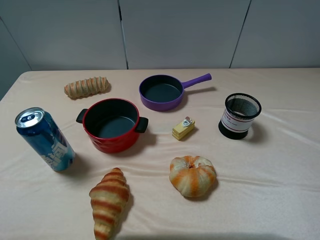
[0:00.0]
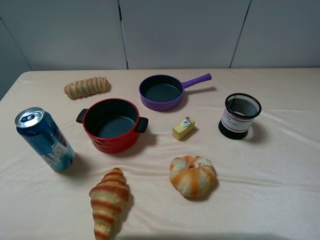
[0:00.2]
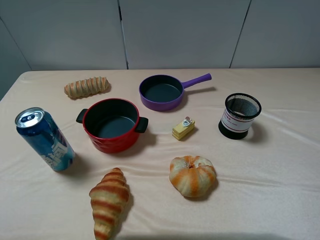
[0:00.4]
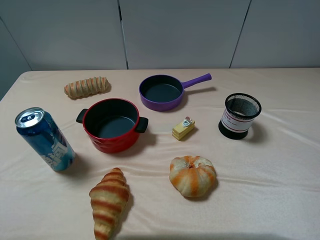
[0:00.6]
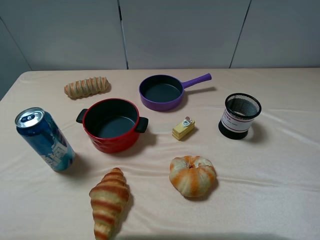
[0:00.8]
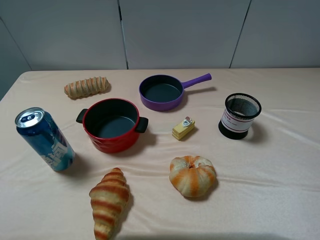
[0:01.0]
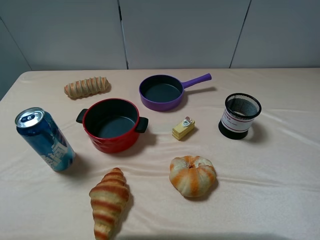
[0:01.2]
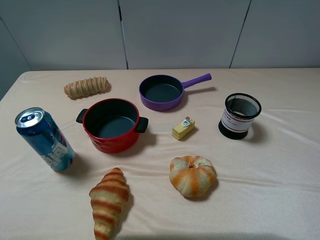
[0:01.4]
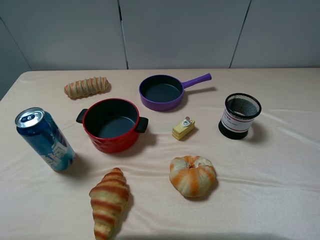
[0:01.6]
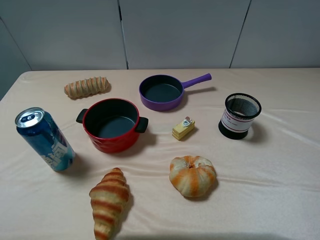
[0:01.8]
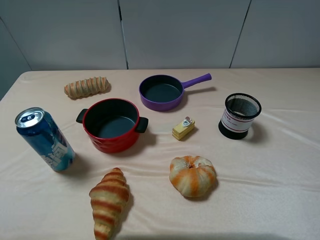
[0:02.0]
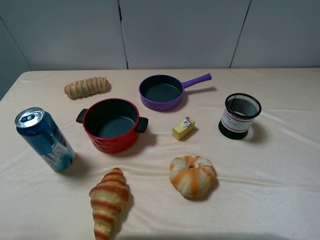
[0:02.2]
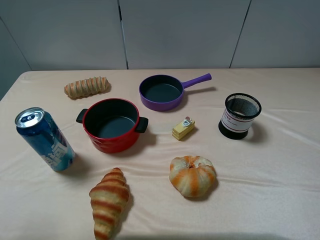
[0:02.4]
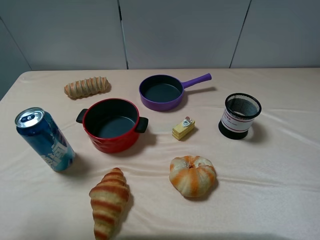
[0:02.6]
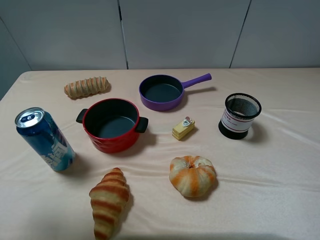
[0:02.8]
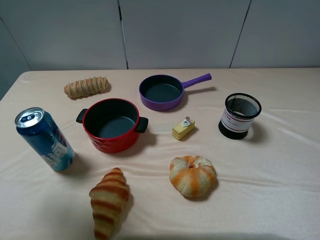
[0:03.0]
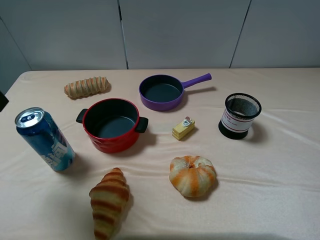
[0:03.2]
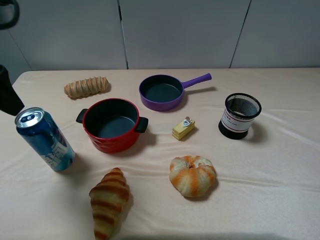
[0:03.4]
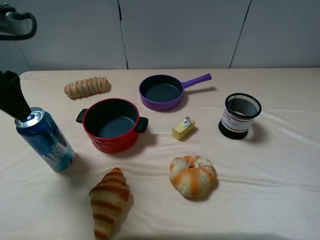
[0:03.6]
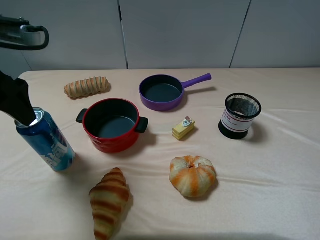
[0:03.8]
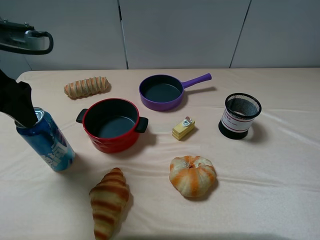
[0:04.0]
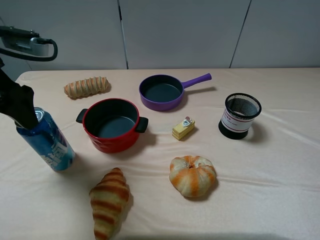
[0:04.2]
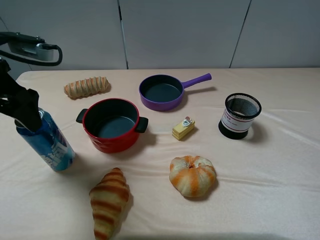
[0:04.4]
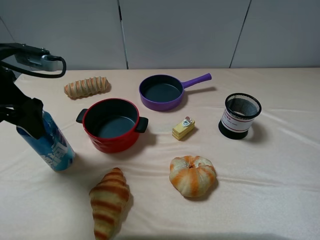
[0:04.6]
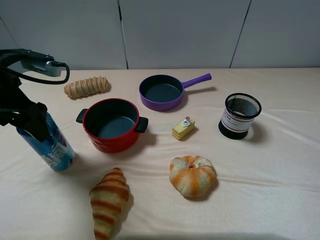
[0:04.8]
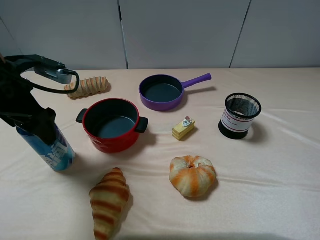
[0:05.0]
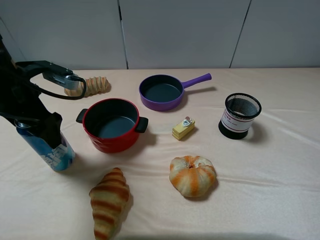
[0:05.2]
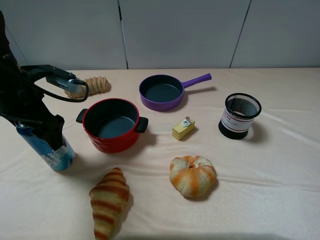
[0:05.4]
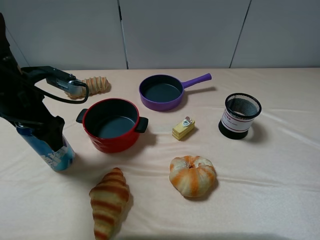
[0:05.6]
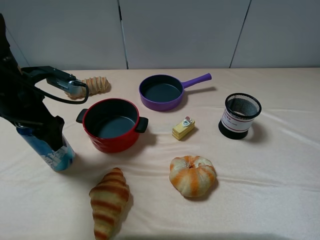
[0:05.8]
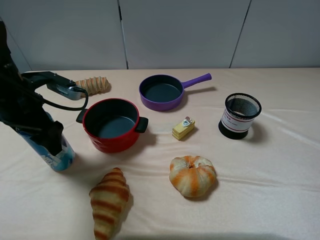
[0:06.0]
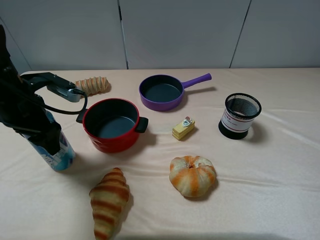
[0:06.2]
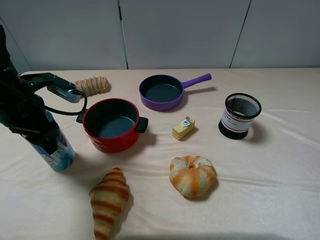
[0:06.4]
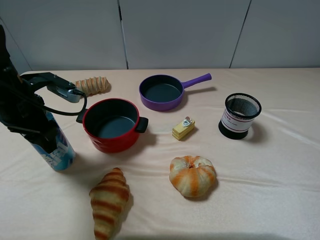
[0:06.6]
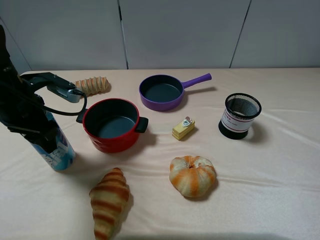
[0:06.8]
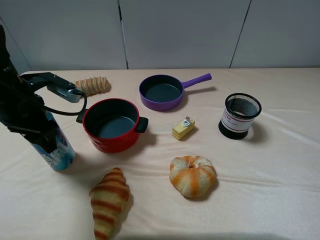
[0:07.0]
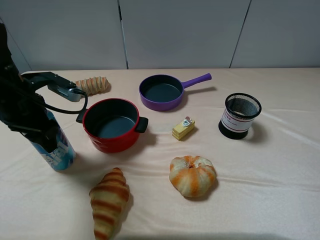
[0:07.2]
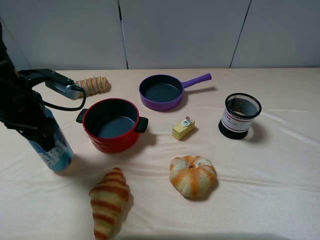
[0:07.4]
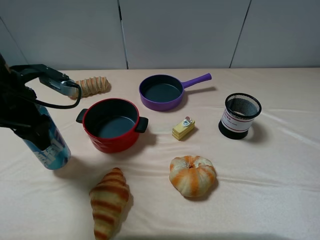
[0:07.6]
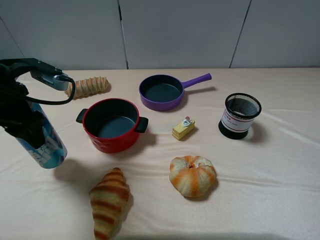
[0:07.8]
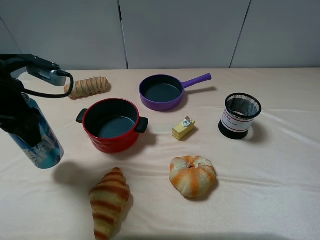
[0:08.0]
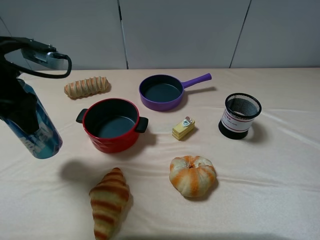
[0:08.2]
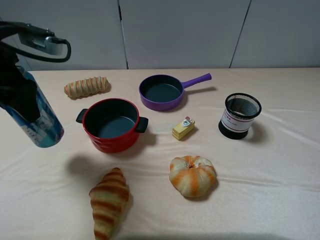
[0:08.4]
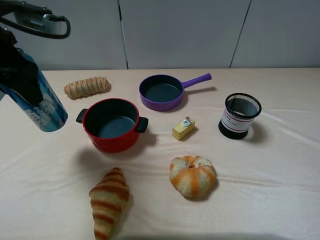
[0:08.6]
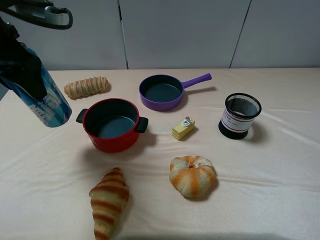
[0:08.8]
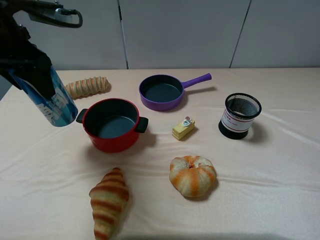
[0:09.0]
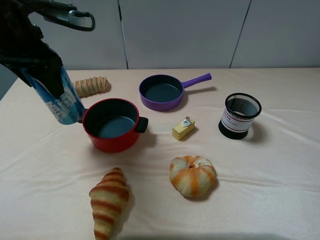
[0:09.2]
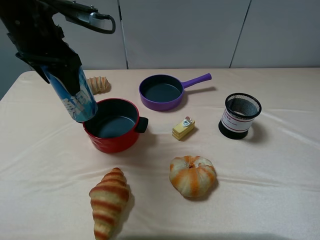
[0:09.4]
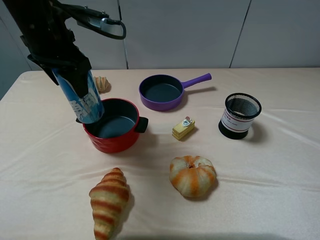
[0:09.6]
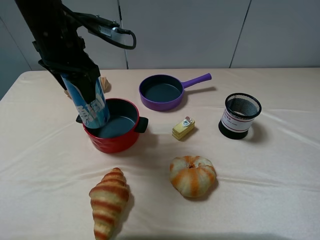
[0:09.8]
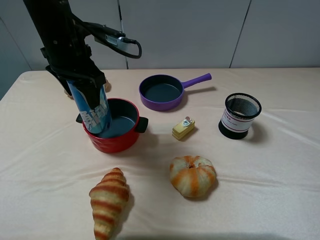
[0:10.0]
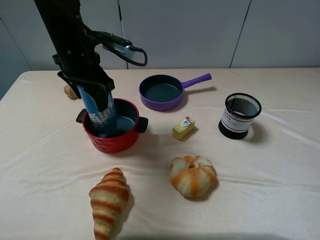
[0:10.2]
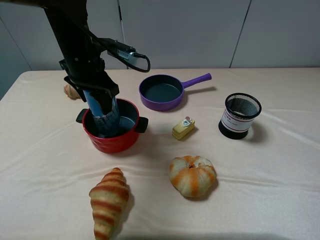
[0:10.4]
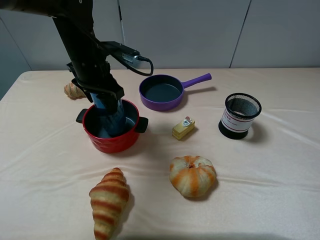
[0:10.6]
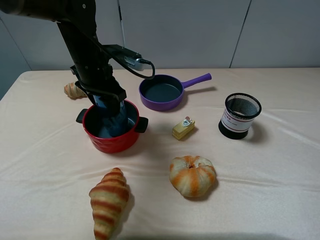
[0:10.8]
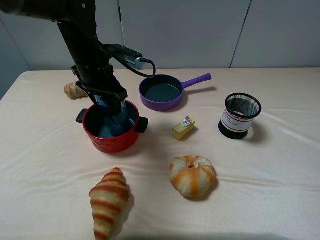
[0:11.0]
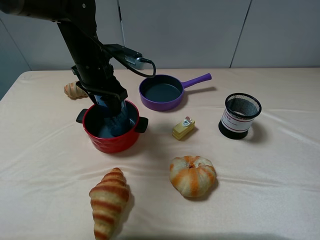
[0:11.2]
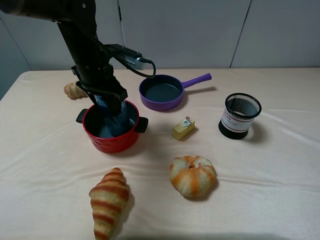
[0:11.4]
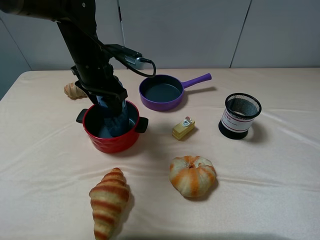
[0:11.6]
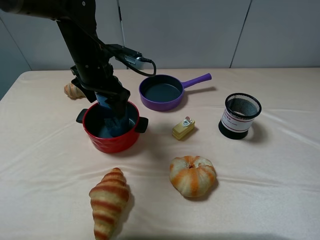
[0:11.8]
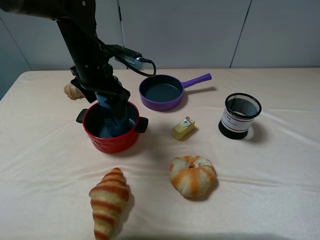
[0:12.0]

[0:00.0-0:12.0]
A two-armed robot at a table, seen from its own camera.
Task of the whole recording: pick up an item with a gripper and place it in a random container on the table.
Step, 0:00.0 to 0:06.8: Grasp the beer with the left gripper.
0:00.0 to 0:01.6: The two grippers keep their place.
0:01.6 to 0:03.0: The left gripper moves forward, some 15 cm.
0:03.0 to 0:04.4: The left gripper moves forward and downward, roughly 10 cm.
0:04.4 to 0:06.0: The left gripper heads downward, covering approximately 5 cm.
0:06.0 to 0:07.6: The left gripper closes its fingers.
0:07.6 to 0:09.0: The left gripper goes roughly 10 cm upward.
0:09.0 to 0:10.4: The left gripper moves to the right, downward and forward, some 15 cm.
0:10.4 to 0:12.0: The left gripper opens.

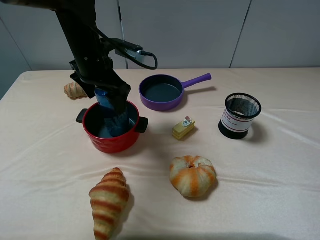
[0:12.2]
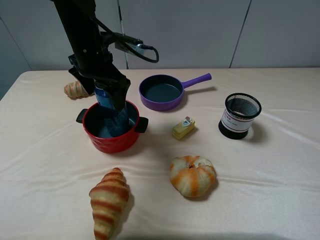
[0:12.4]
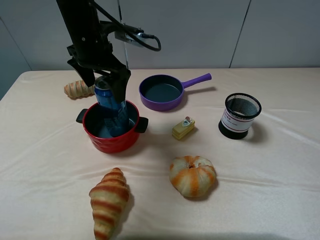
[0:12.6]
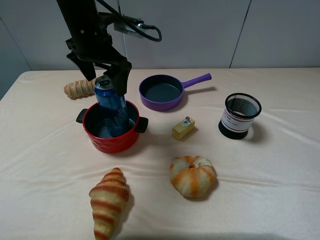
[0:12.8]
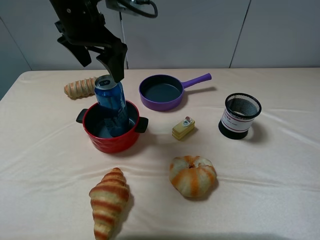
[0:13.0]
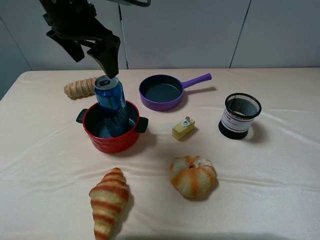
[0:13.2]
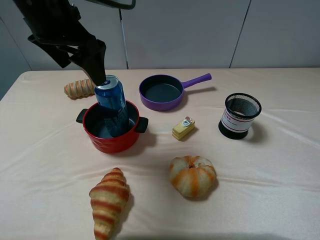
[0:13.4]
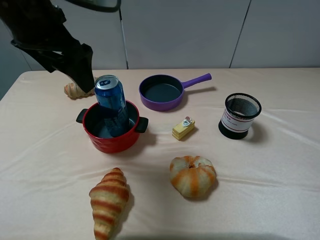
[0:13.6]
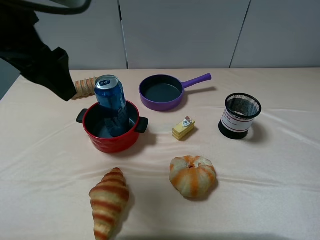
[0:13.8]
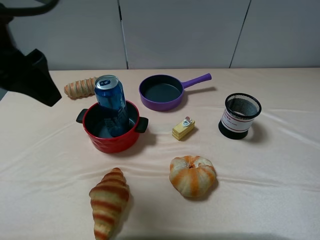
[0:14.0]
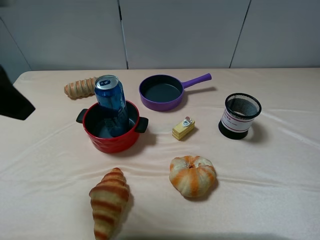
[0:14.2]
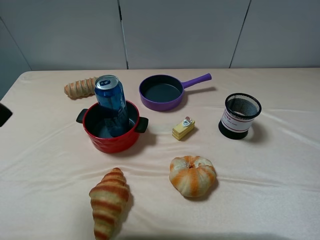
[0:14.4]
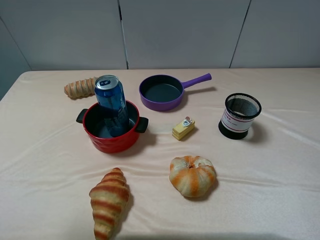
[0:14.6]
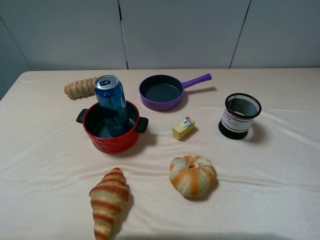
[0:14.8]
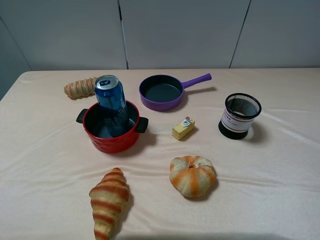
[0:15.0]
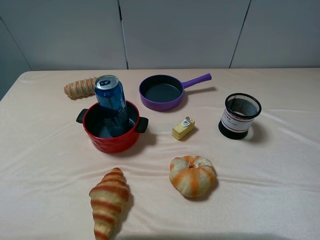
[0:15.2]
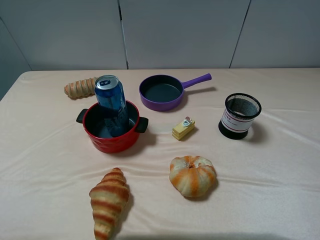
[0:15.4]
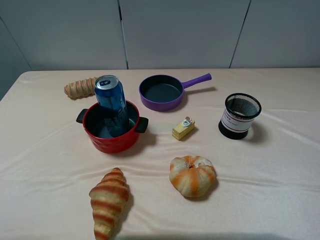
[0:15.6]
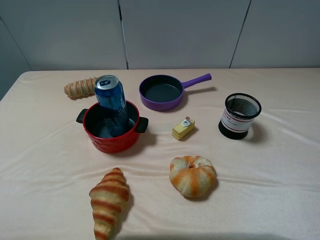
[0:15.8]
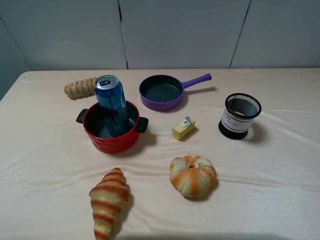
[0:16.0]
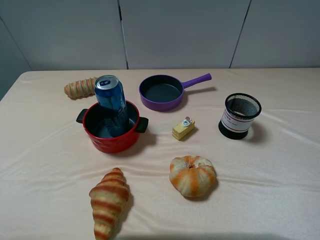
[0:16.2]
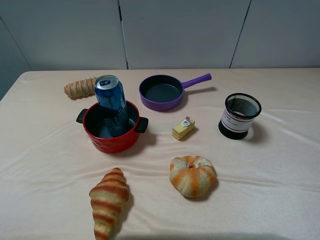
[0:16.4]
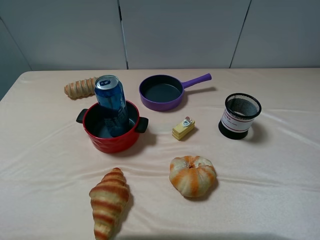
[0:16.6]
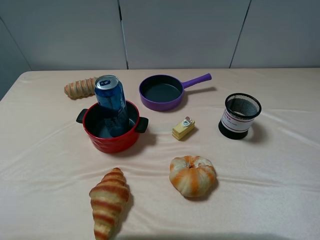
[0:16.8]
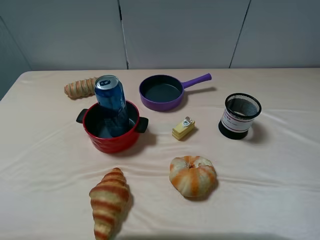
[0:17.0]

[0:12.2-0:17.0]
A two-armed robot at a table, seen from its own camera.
Task of the whole recording: pick up an item with a gripper and place it in a random container on the table.
0:12.2 to 0:13.8: The left gripper goes roughly 20 cm upward, backward and to the left.
0:13.8 to 0:15.4: The left gripper moves backward and to the left, about 25 cm.

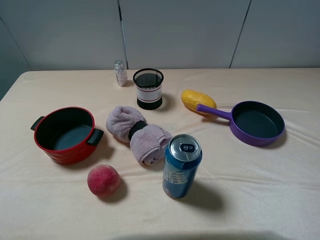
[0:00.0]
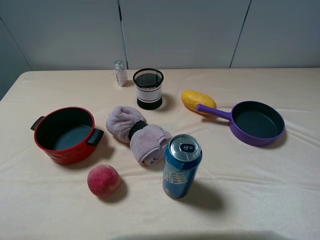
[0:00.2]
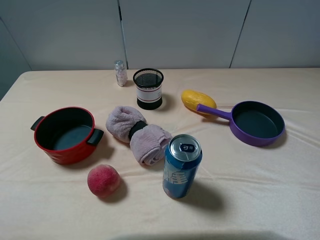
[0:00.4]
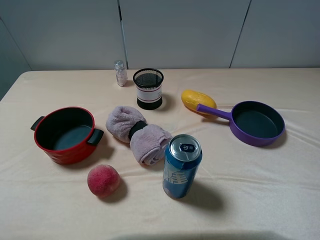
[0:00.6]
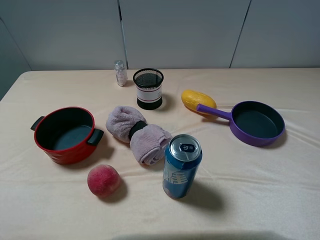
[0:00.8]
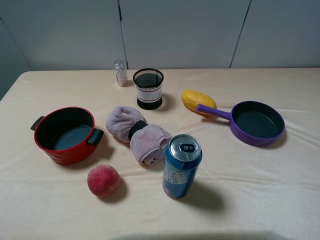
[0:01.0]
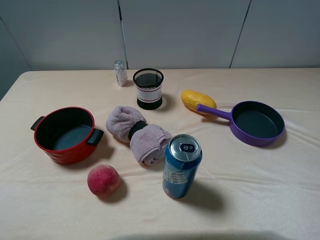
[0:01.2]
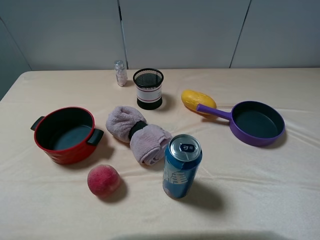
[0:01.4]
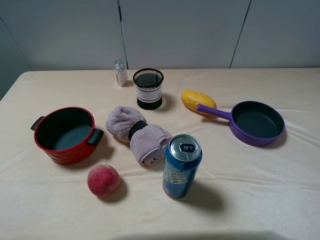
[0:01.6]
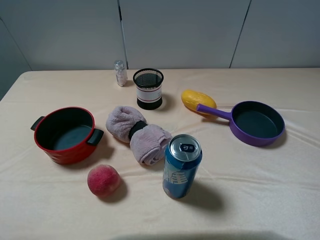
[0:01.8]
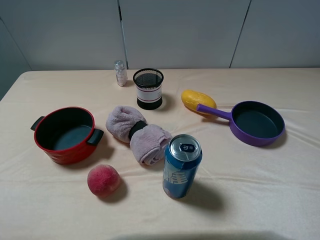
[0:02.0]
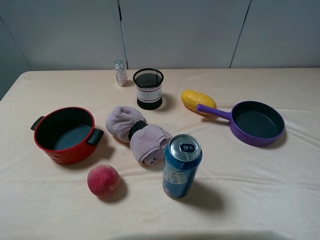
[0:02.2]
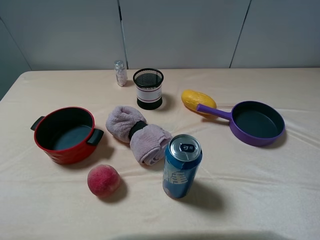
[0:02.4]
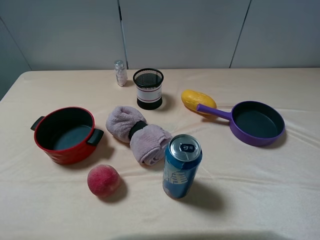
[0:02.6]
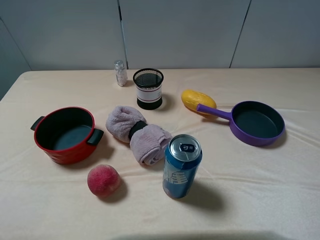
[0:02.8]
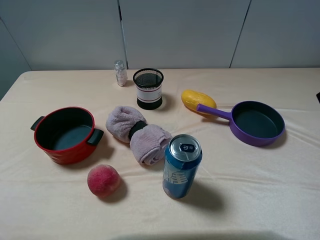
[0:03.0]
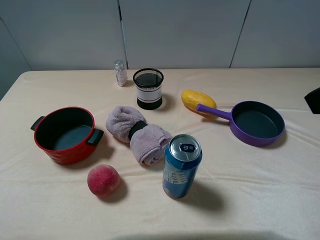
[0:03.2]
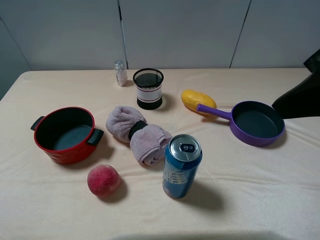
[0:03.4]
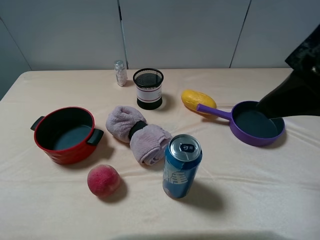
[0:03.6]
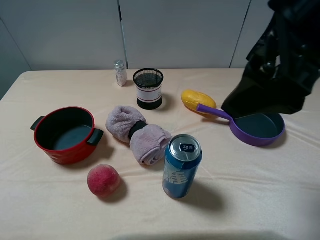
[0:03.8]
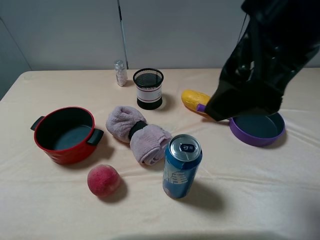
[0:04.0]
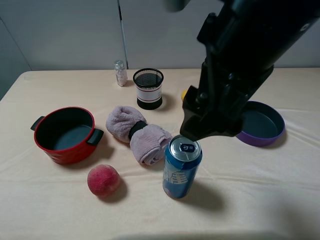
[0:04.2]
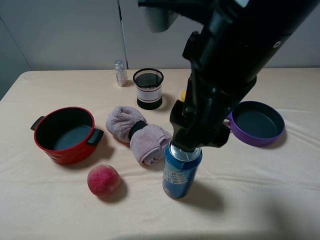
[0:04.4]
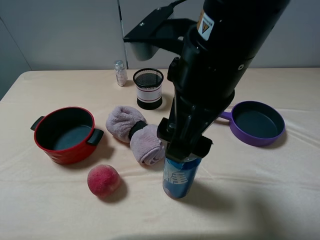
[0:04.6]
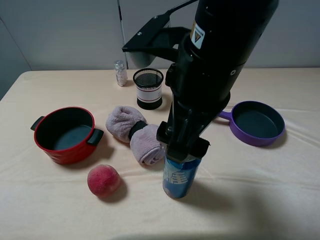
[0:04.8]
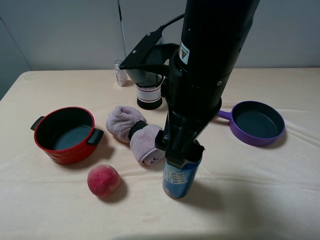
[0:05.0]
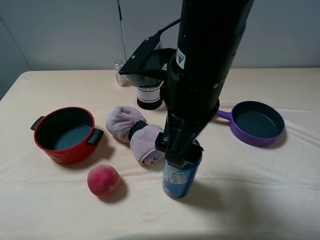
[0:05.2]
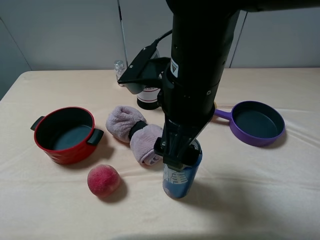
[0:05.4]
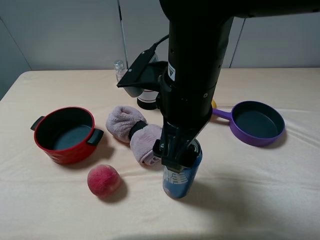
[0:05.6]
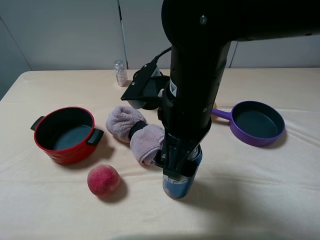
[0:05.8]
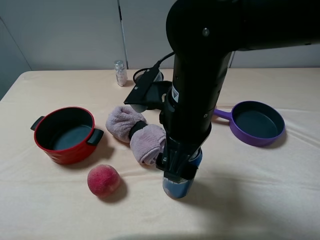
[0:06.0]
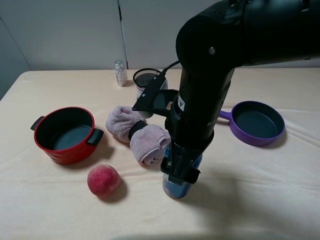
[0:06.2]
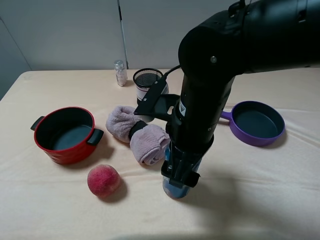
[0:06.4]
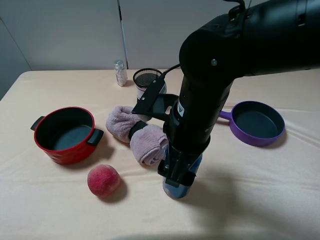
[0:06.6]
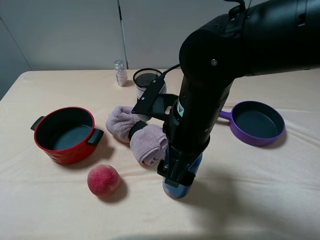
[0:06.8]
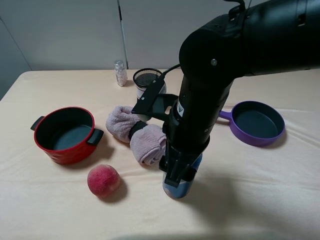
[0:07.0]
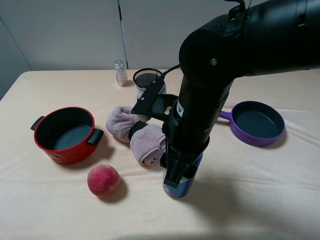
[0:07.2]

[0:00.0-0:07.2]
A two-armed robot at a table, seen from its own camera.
Task of the whole recording: pick up an item with a gripper and place it in a random container on the table.
0:00.0 to 0:01.4: Neither gripper changes place.
0:02.8 to 0:04.4: The right gripper heads to the left, covering approximately 20 cm.
0:04.4 to 0:05.8: The right gripper travels downward by approximately 10 cm.
0:05.8 to 0:07.2: The right gripper closes up.
